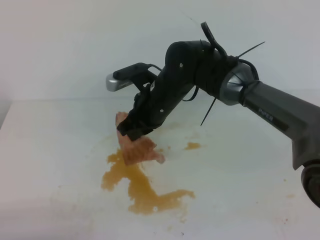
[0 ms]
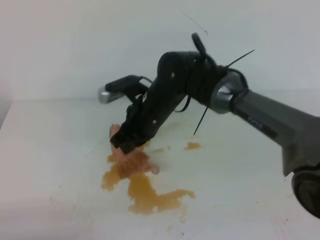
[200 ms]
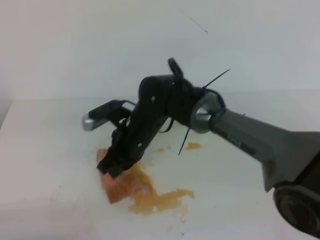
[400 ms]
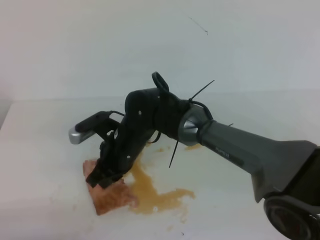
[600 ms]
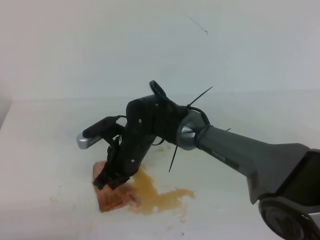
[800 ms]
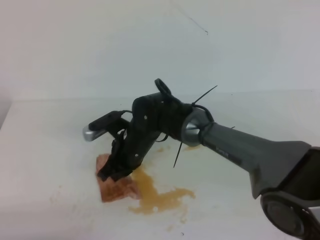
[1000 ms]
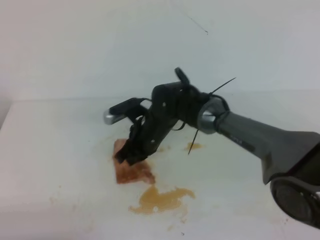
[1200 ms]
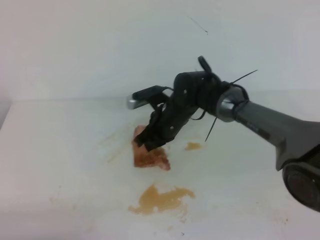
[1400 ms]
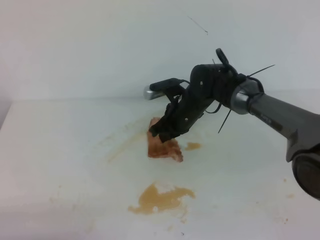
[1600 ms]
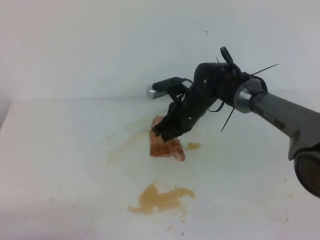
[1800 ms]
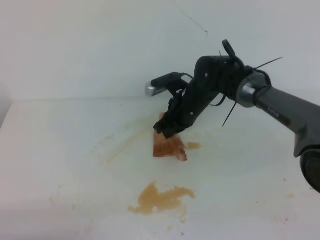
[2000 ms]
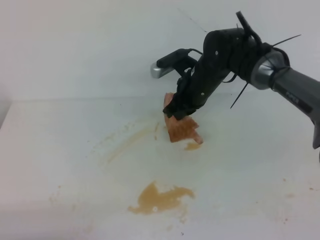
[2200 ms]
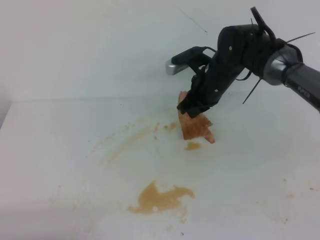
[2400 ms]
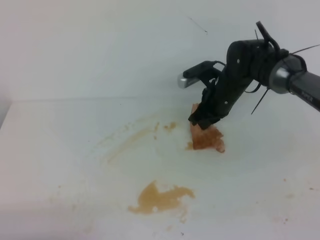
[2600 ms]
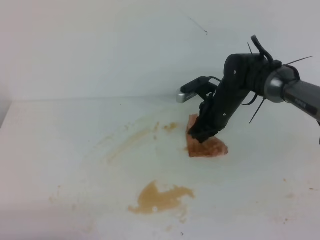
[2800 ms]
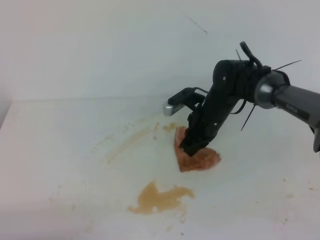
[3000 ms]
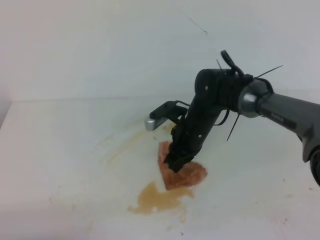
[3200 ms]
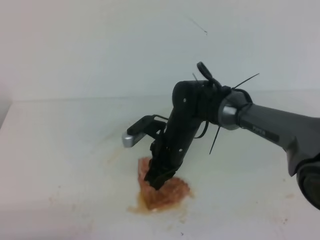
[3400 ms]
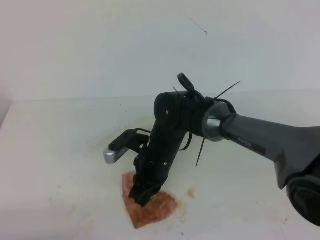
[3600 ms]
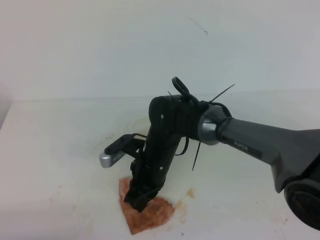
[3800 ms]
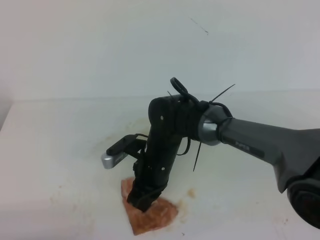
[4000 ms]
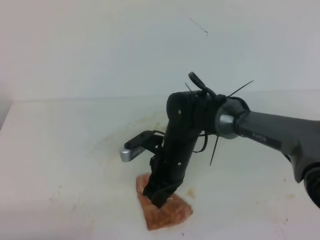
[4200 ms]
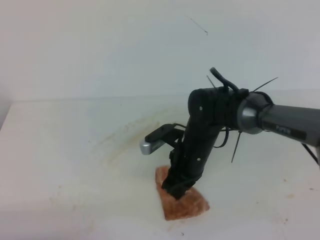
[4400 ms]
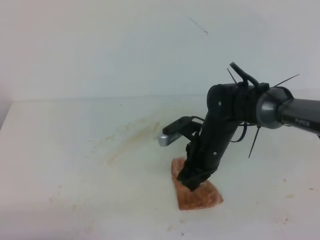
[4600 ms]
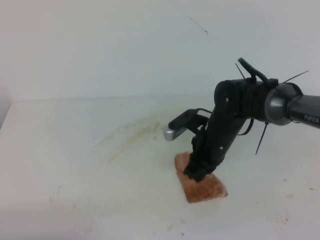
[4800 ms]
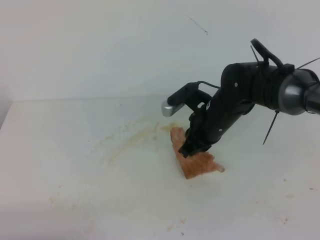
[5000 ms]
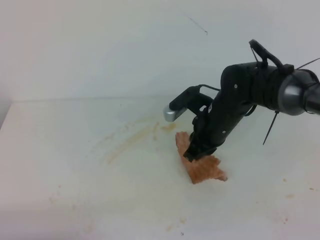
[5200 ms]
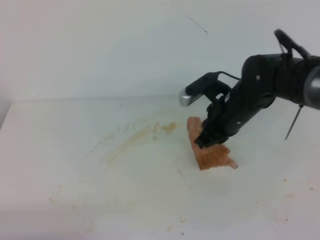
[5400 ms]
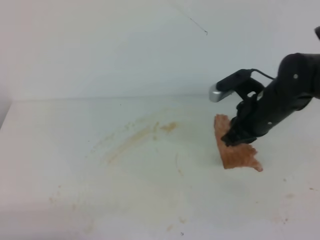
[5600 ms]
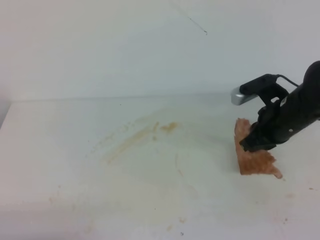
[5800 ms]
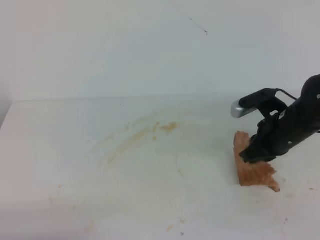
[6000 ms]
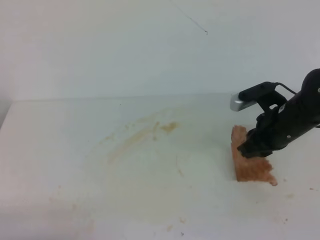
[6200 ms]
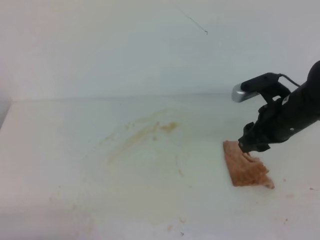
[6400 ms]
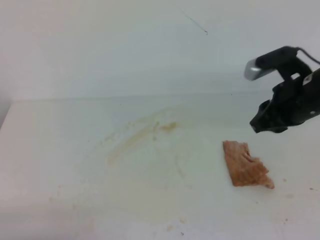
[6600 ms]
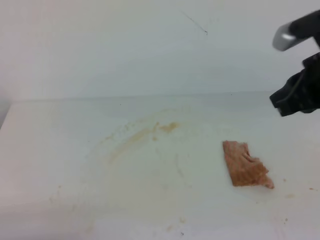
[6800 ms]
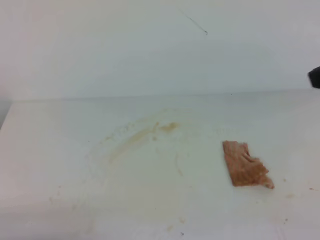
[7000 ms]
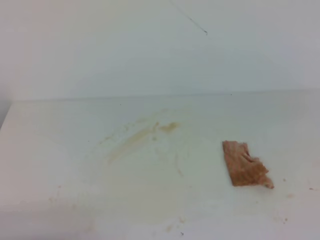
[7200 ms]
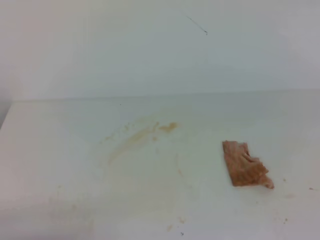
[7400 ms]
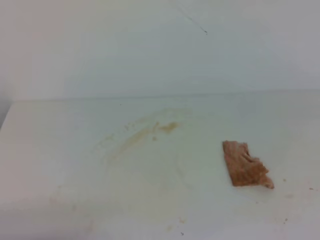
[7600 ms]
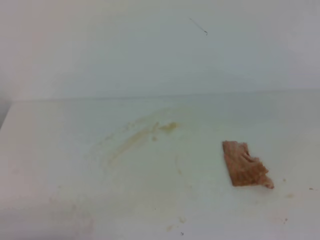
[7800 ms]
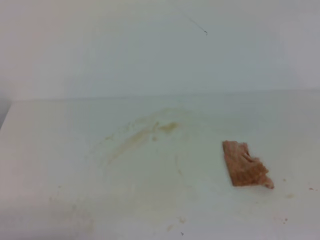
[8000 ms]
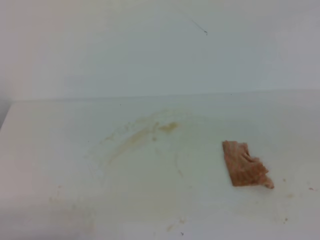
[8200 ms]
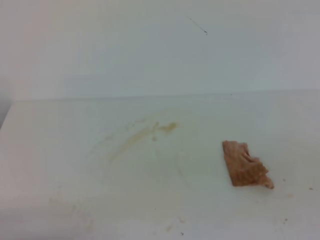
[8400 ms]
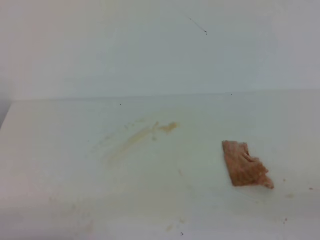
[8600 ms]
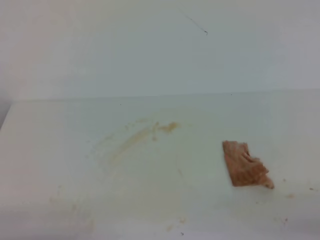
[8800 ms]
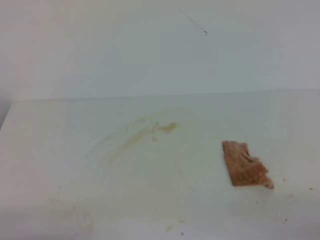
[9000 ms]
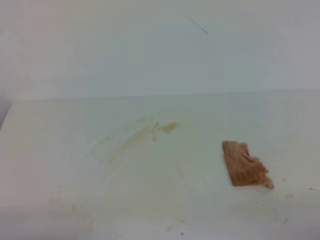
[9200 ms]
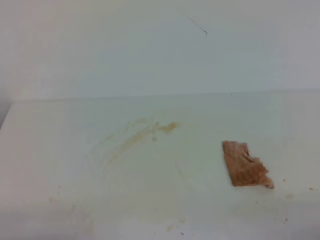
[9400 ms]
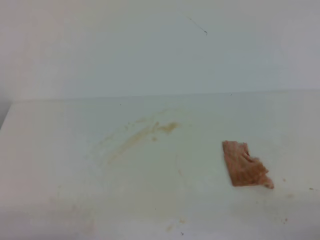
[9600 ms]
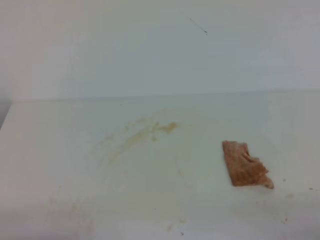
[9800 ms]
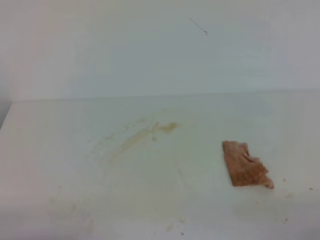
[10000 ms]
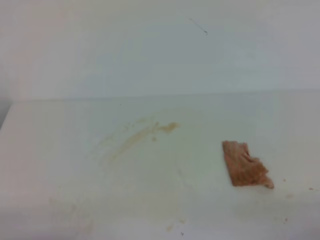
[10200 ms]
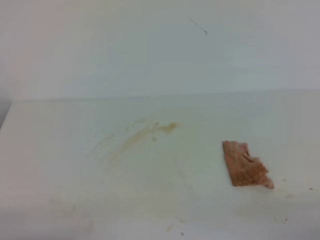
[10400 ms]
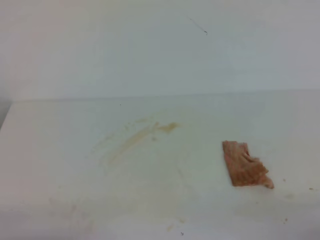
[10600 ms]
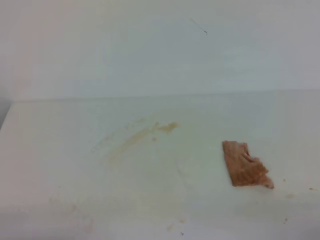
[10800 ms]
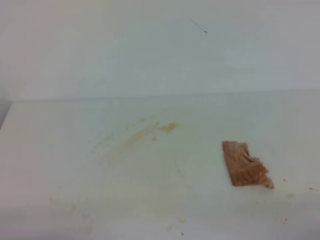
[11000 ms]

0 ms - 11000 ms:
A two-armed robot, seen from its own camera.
0 ms - 1600 ms: The right gripper travels downward and forward by roughly 10 cm.
3200 ms - 4800 ms: The right gripper goes to the left and returns, some 10 cm each way.
4800 ms - 6200 ms: The right gripper heads to the right, covering roughly 10 cm, and opens.
6200 ms - 7800 ms: The right gripper heads upward and backward, covering about 30 cm, and closes its fingers.
9400 ms - 11000 ms: Both grippers stay about where they are.
